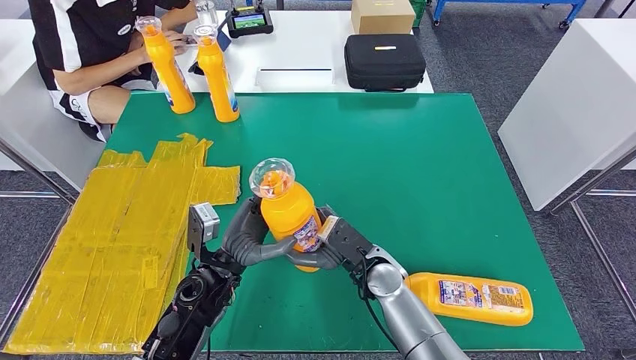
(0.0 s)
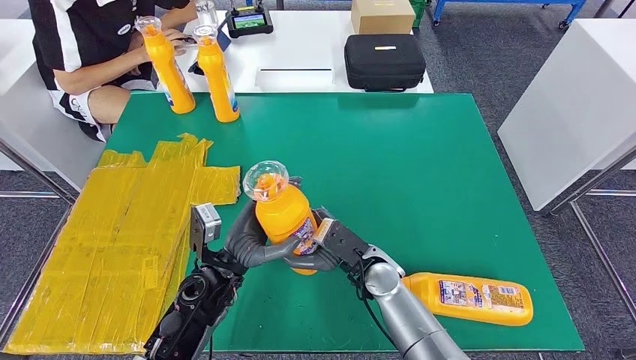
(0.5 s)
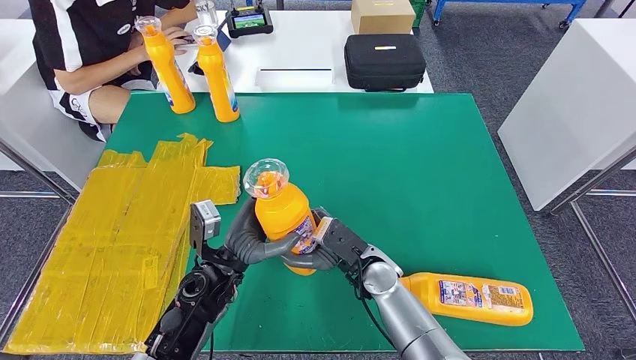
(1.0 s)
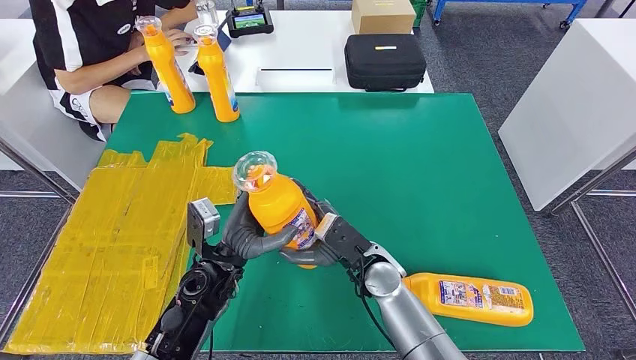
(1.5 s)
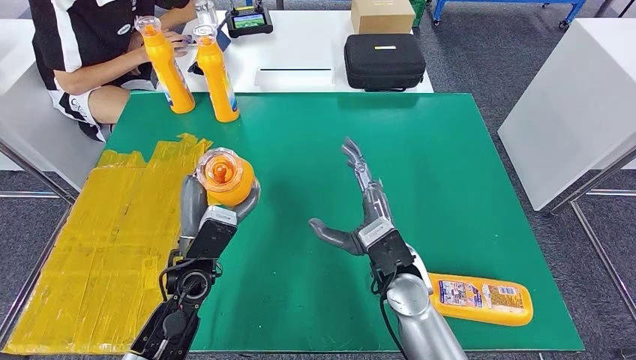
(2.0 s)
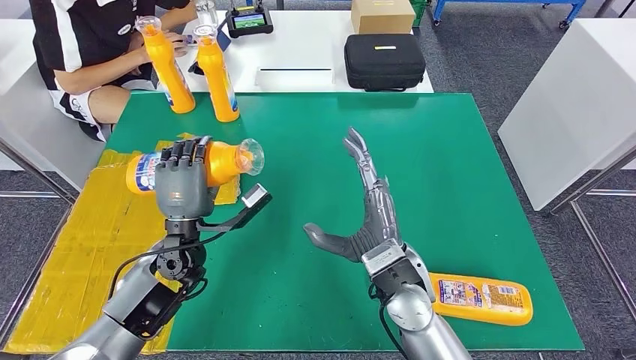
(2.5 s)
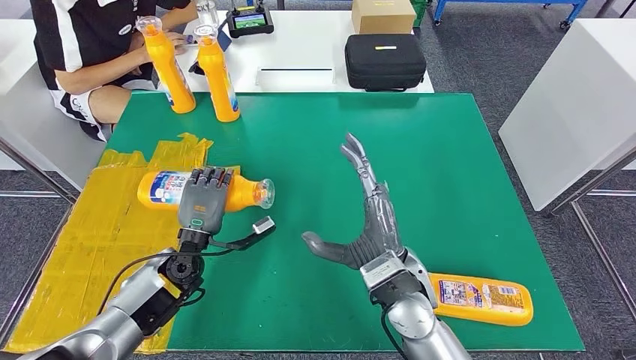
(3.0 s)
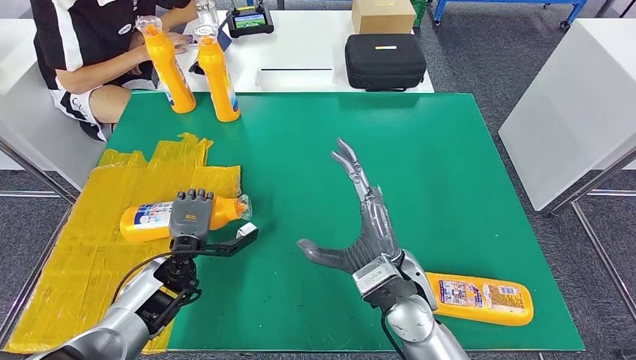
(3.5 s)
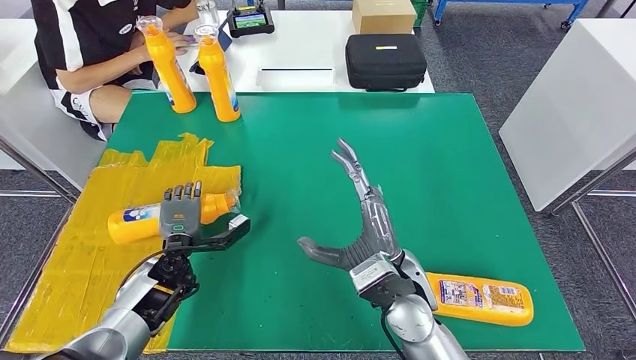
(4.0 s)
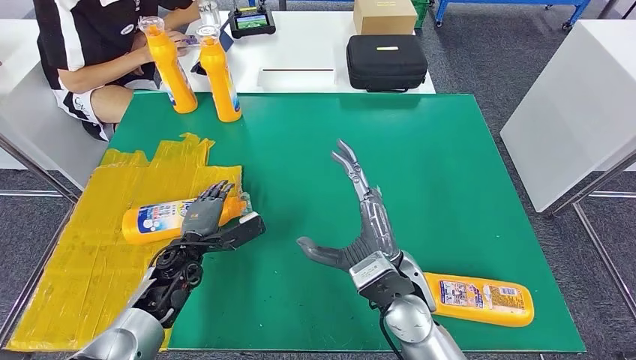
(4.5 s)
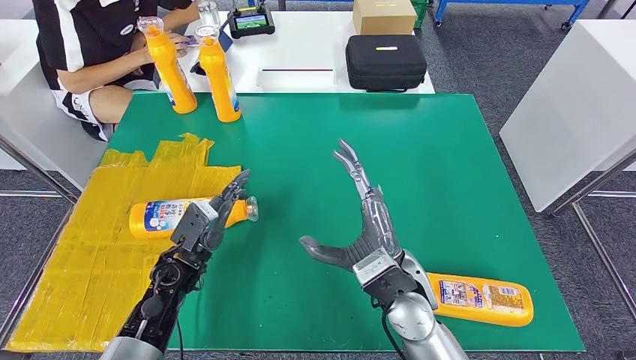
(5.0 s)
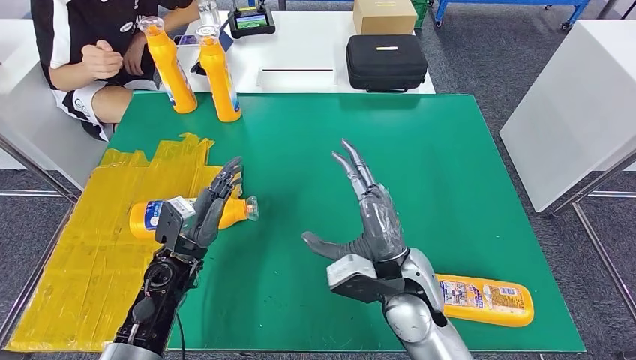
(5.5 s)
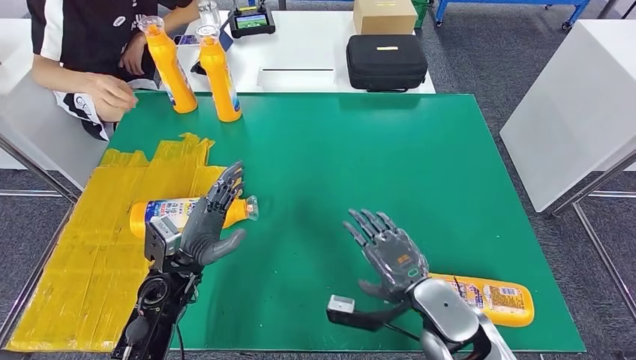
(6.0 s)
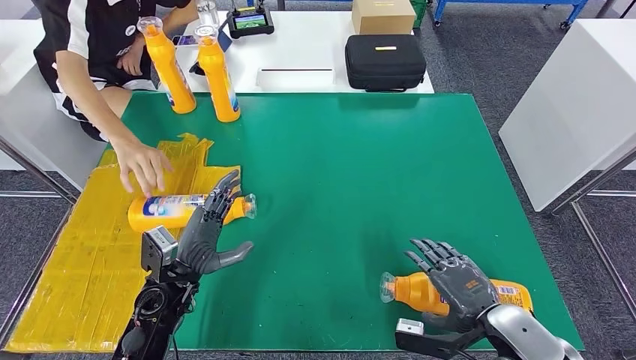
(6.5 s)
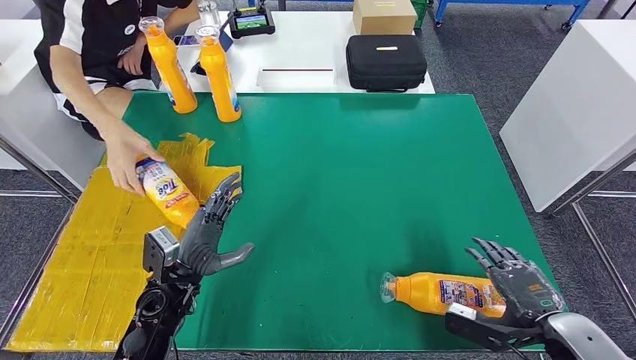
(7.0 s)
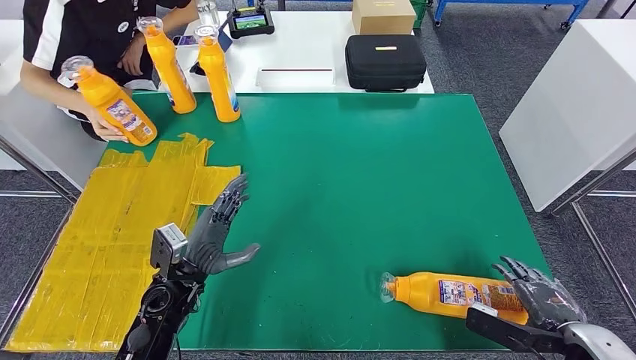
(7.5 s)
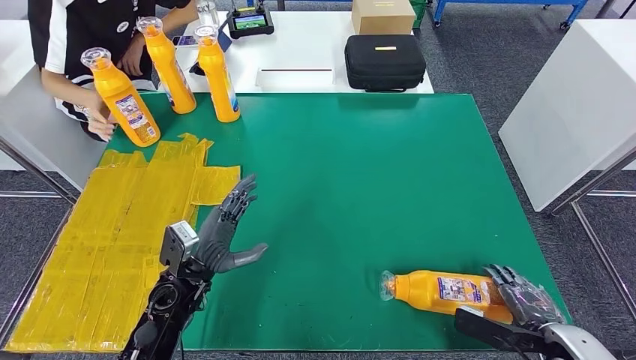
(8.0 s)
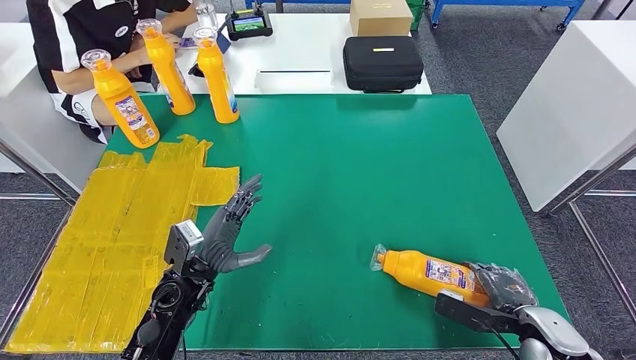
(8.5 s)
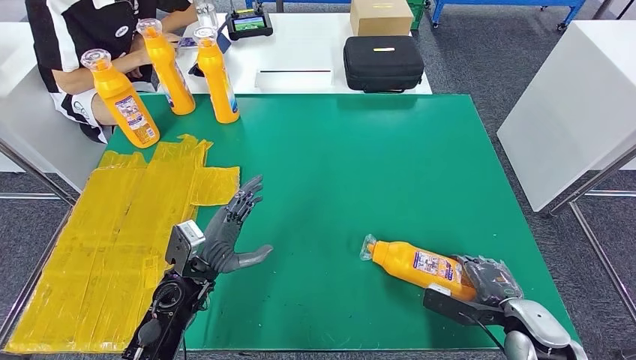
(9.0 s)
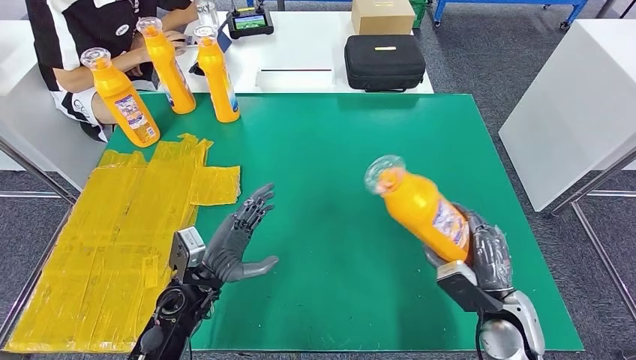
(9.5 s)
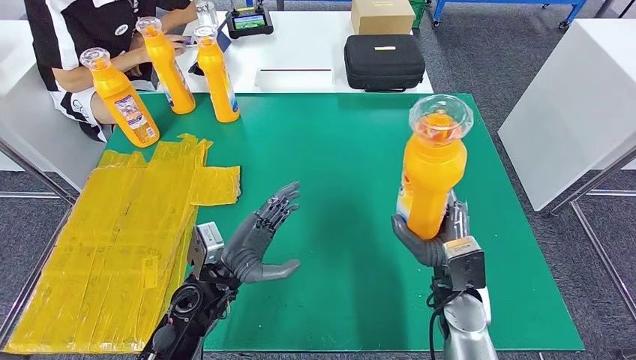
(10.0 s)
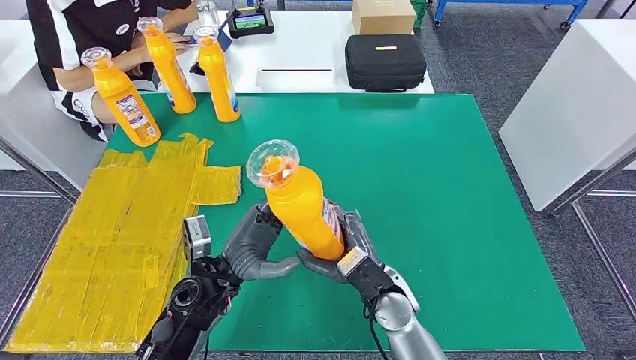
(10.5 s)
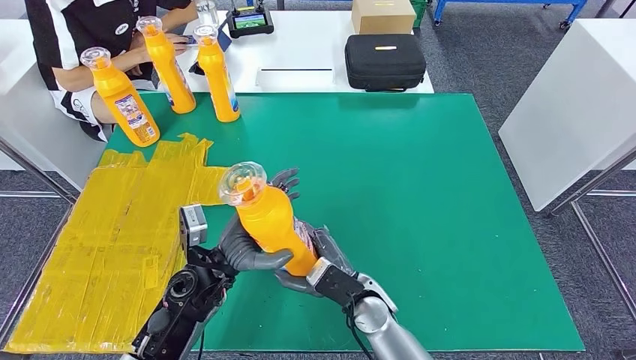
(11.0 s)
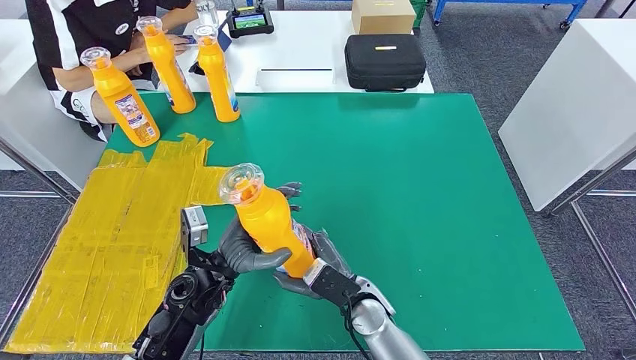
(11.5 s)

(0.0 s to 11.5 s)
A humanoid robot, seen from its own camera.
Step, 0.0 s - 3.5 s: Flip the fast-moving consumer goods bottle to the front side.
Step, 4.0 s - 10.0 s: Pick up the fast-moving consumer goods bottle from the table.
0.0 s - 2.0 s: The right hand travels upward by approximately 5 cm.
2.0 s - 4.0 s: The left hand is displaced downward and to the left by some 10 cm.
4.0 s - 6.0 s: The right hand goes about 5 cm to the right; the left hand heads upward and backward, covering some 10 cm.
6.0 s - 7.5 s: The right hand travels to the right by roughly 20 cm.
9.5 s - 11.5 s: The right hand shifts some 25 cm to the left.

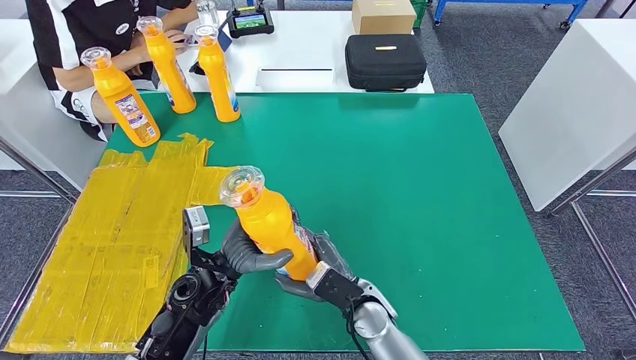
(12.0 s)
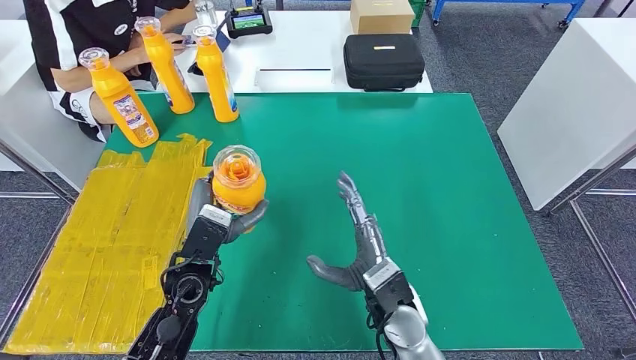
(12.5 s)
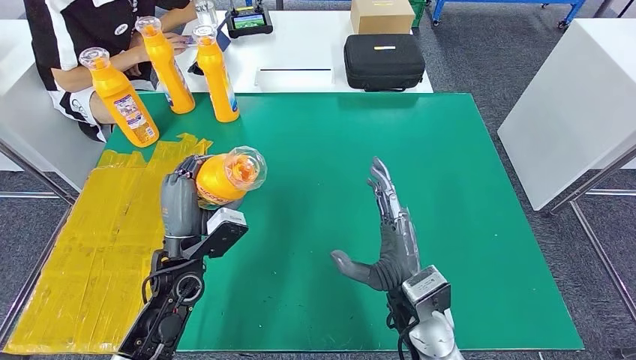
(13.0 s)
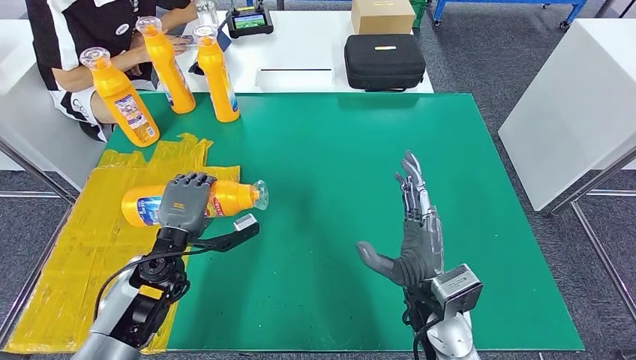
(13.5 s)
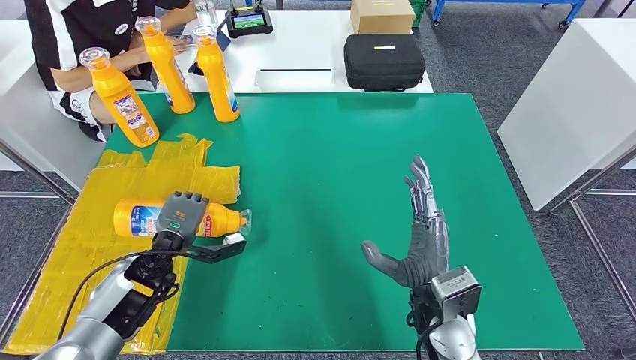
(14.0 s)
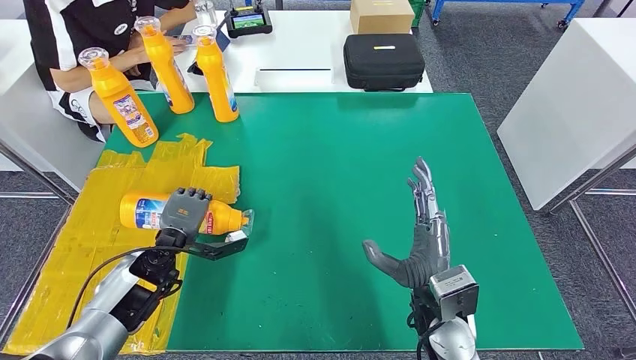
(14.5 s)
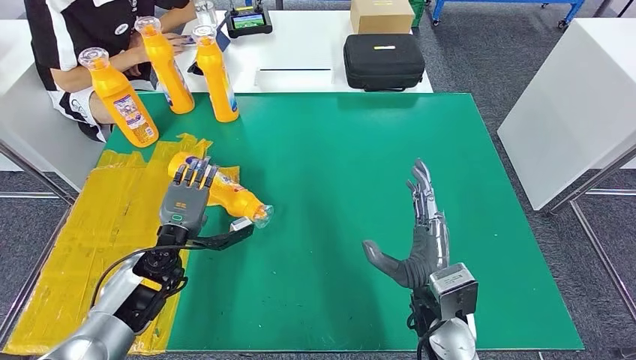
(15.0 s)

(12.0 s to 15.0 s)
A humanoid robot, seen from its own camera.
Step, 12.0 s - 15.0 s: Flip the fast-moving consumer goods bottle to the front side.
12.0 s - 13.5 s: The left hand goes some 10 cm to the left. Meanwhile the right hand is displaced upward and to the right by about 10 cm.
